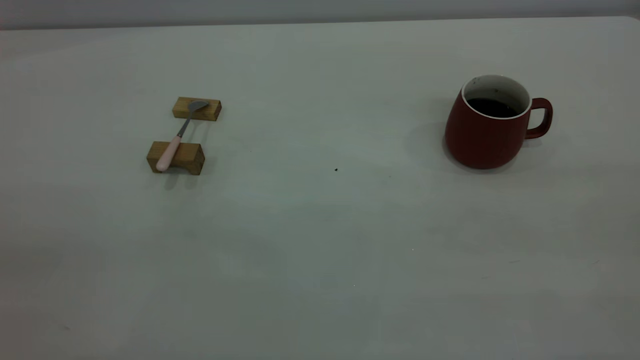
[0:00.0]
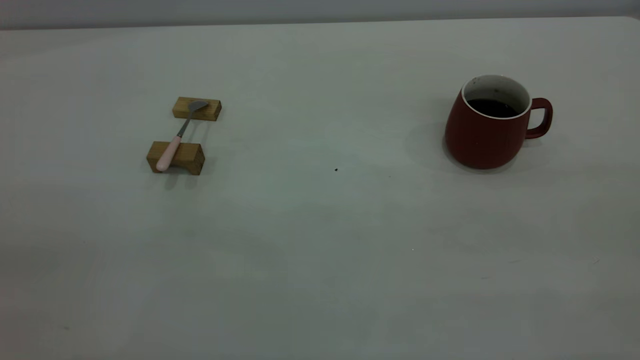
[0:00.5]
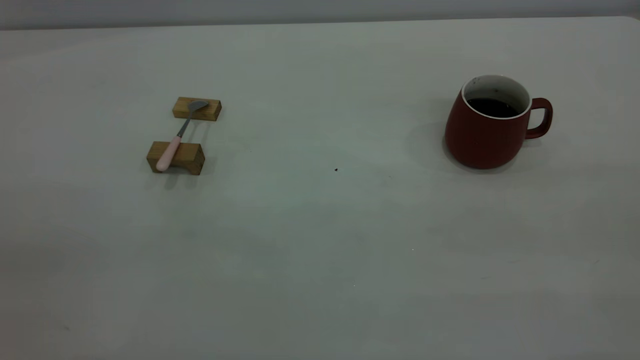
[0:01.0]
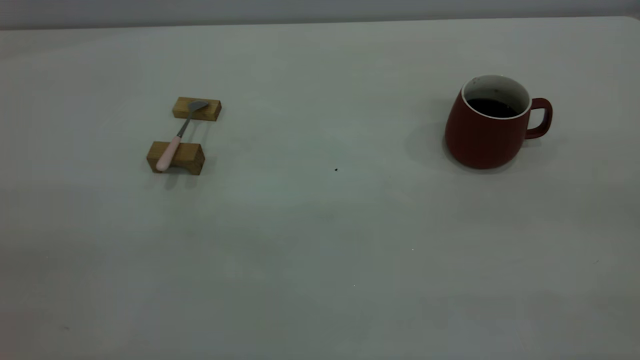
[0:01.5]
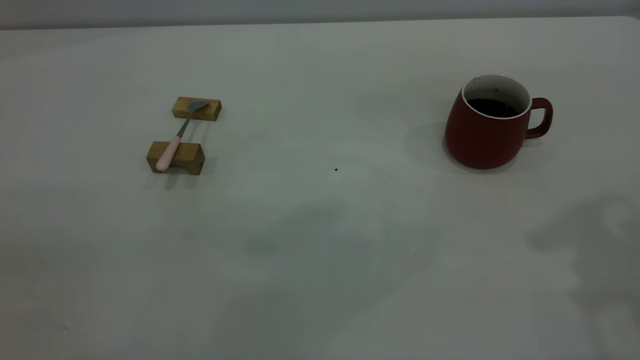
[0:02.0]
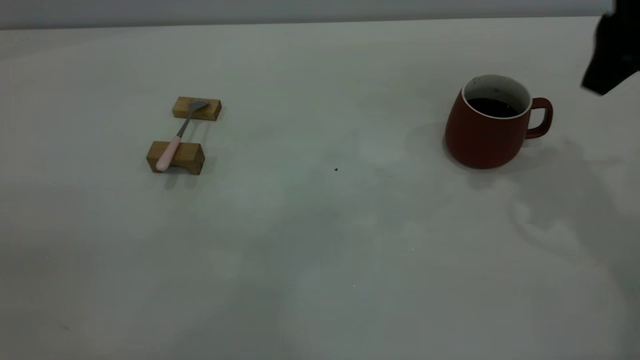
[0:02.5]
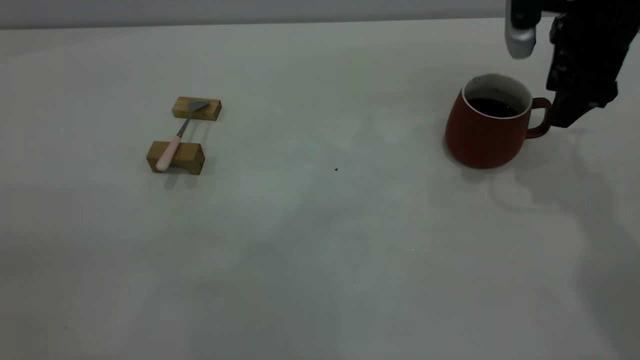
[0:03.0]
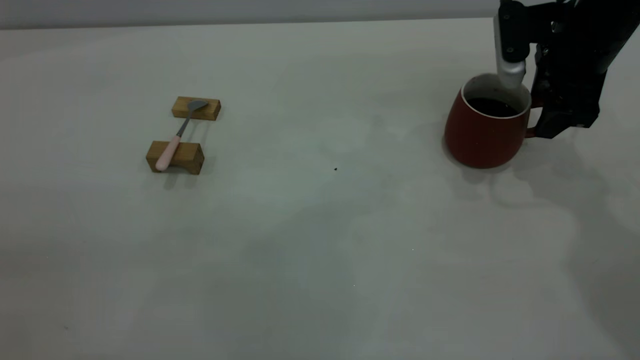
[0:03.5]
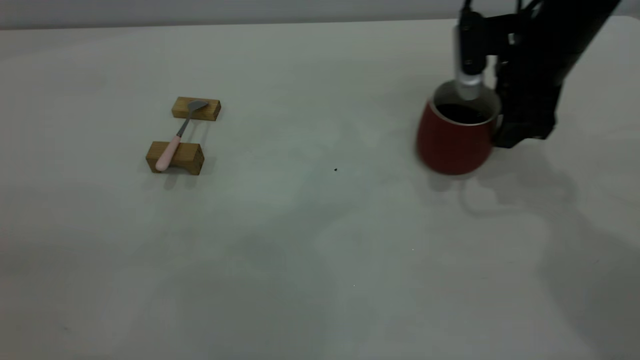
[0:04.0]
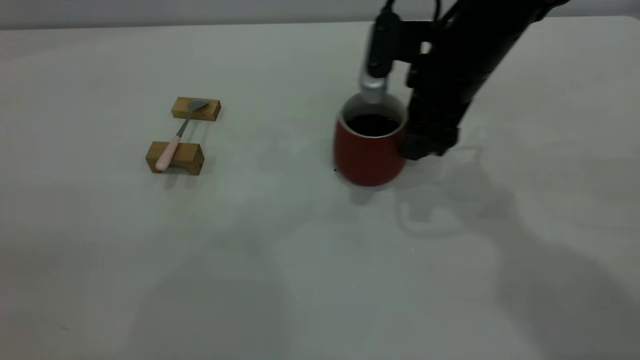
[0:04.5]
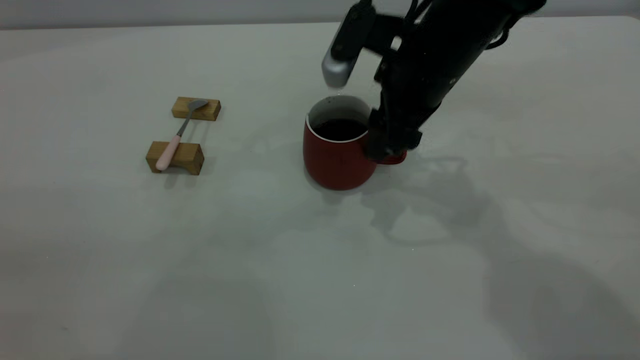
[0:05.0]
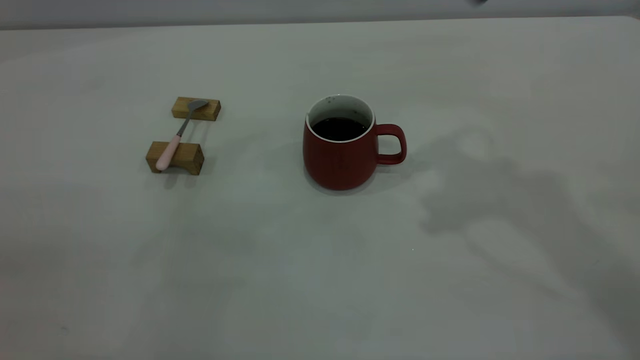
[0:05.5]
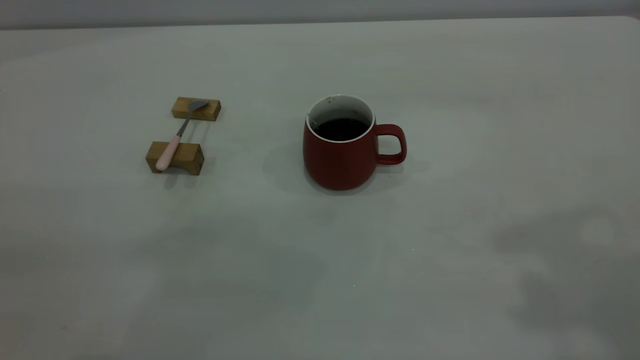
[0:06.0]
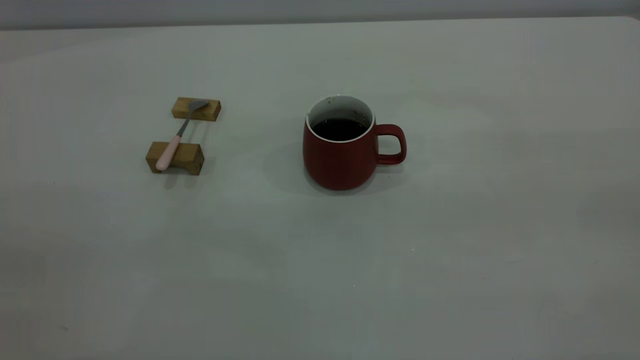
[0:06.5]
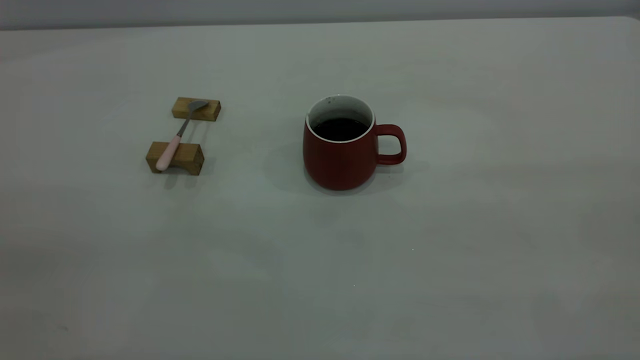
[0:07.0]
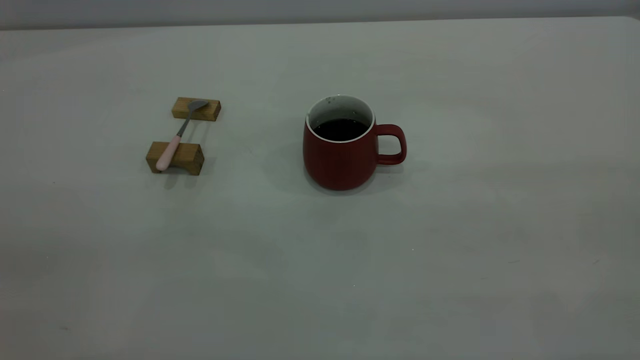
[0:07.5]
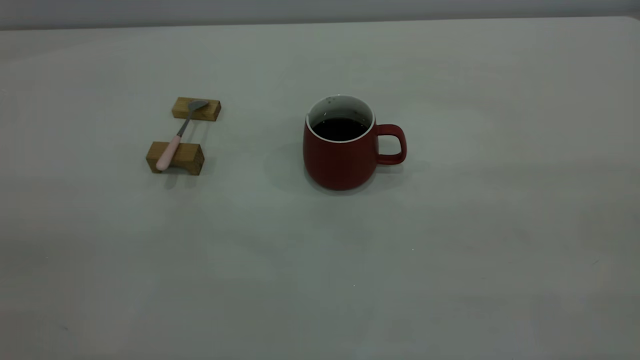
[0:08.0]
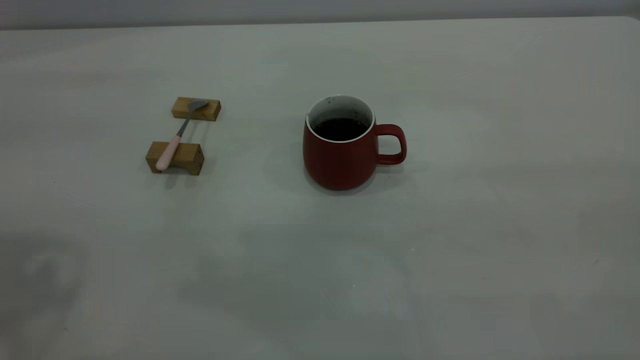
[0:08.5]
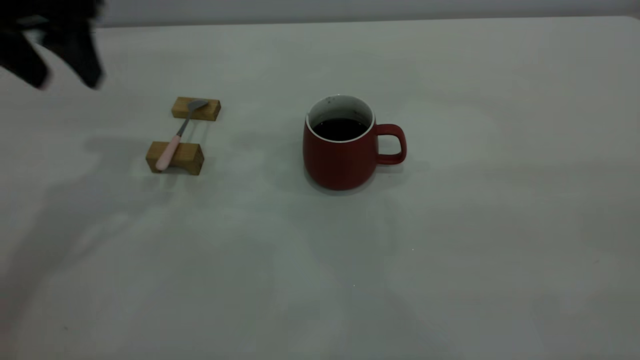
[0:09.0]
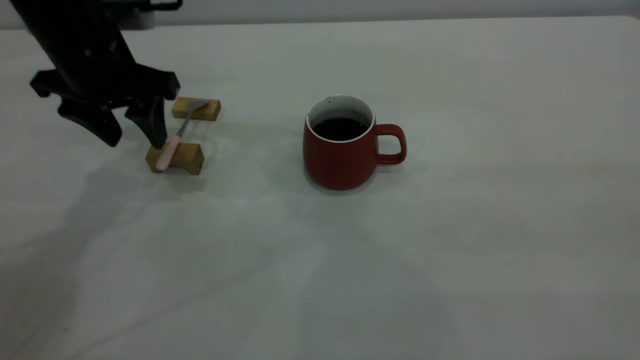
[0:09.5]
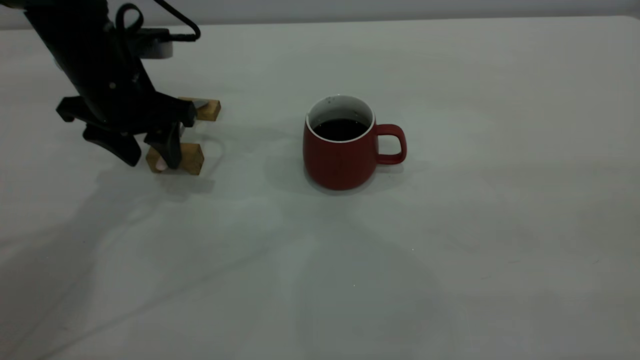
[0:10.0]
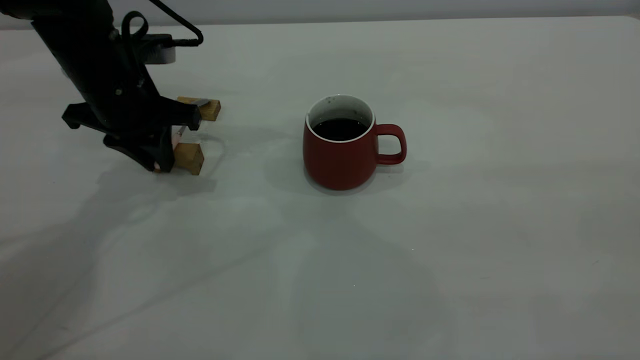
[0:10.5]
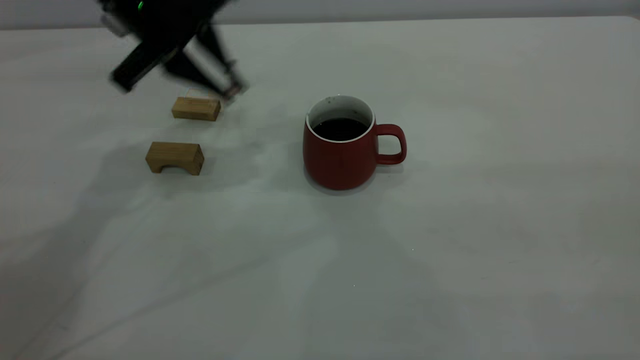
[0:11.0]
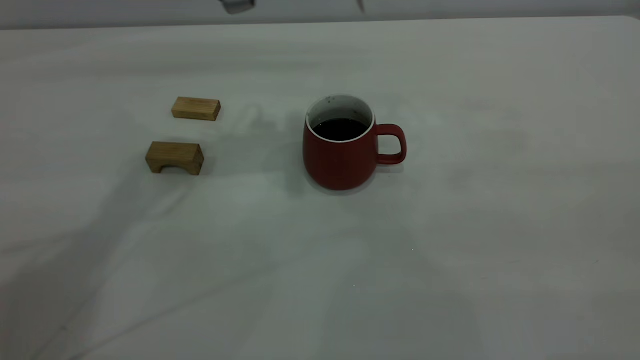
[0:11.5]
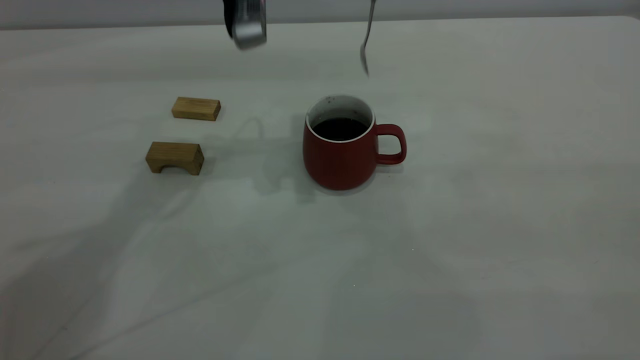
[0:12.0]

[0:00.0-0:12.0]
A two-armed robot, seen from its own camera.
Step, 0:00.0 to 0:05.0: Move the cup with coffee to the center of view.
Step, 0:05.5 to 0:10.5: Pick up the spoon.
0:02.0 to 0:04.0: The right gripper goes some 25 cm downward and forward.
0:04.0 to 0:06.0: The right gripper travels upward and backward by some 40 cm.
0:08.0 to 0:10.0: The left gripper is displaced forward and downward by roughly 40 cm, and opens its fingers.
0:10.0 to 0:12.0: The left gripper goes roughly 15 cm to the right and upward, and closes its fingers.

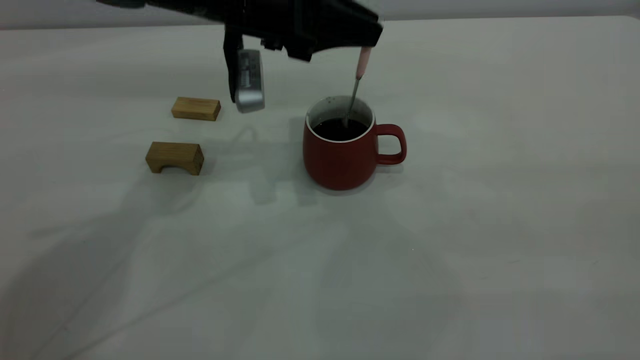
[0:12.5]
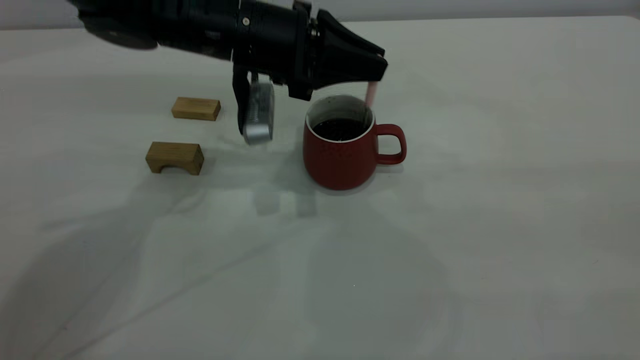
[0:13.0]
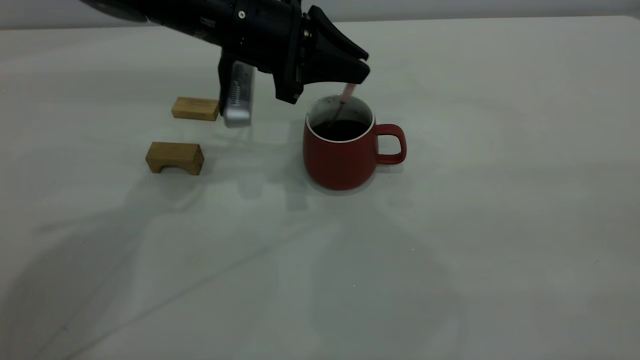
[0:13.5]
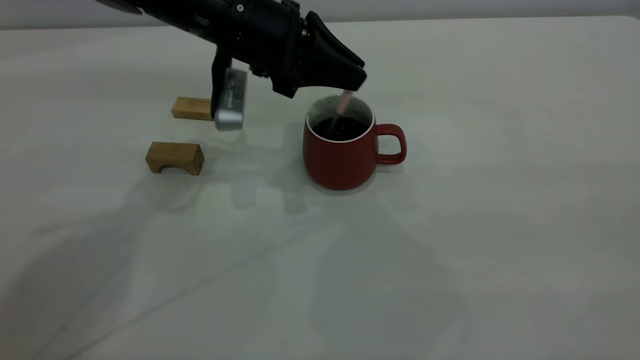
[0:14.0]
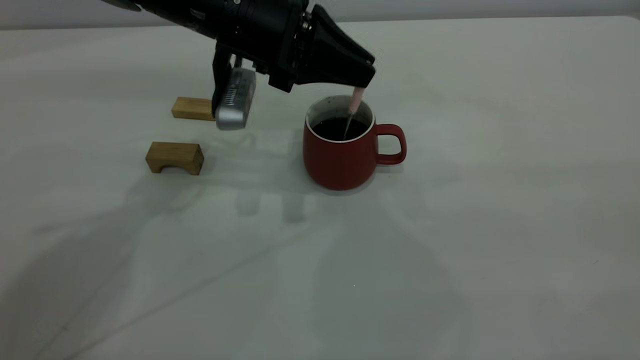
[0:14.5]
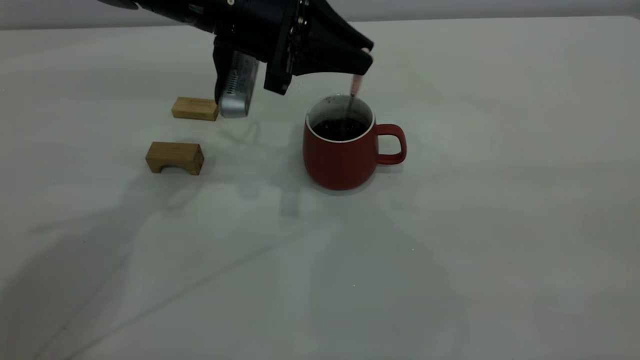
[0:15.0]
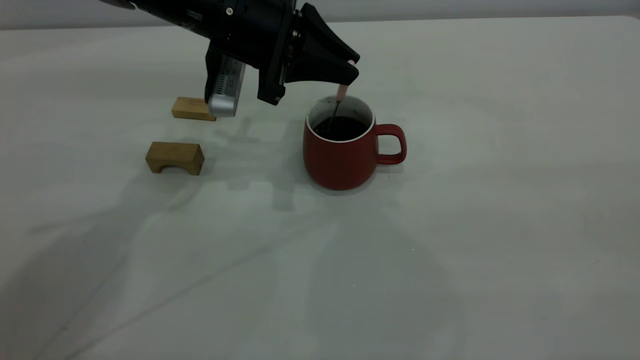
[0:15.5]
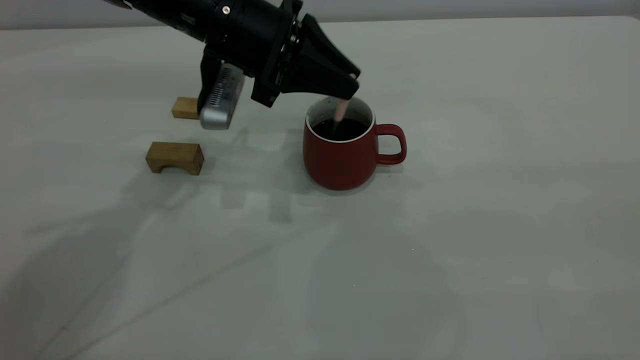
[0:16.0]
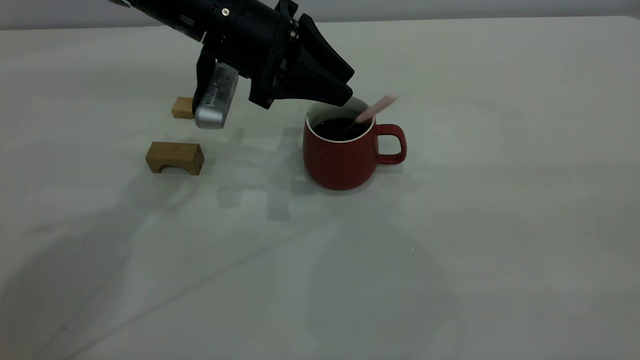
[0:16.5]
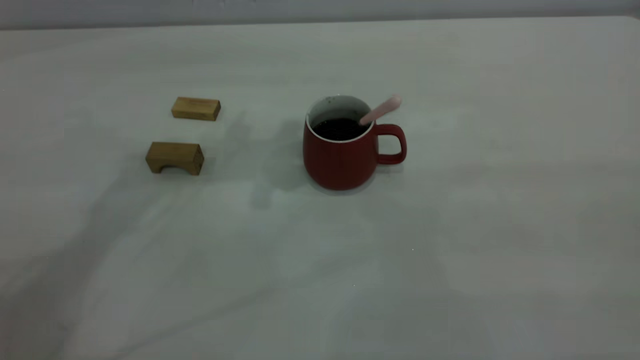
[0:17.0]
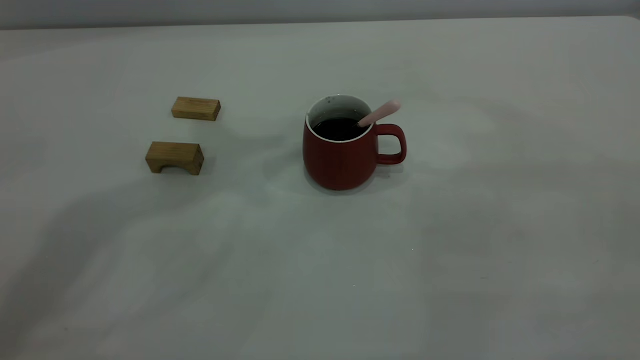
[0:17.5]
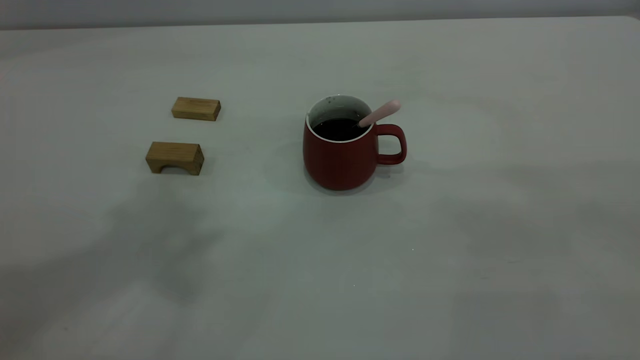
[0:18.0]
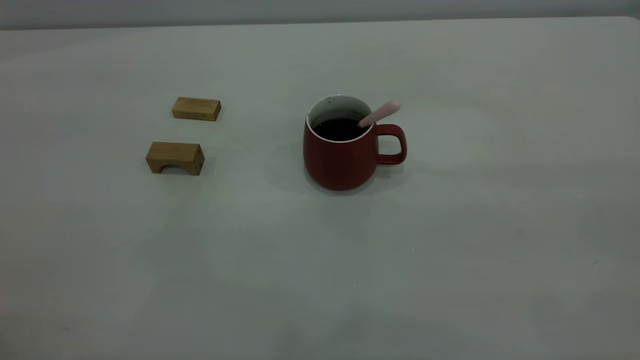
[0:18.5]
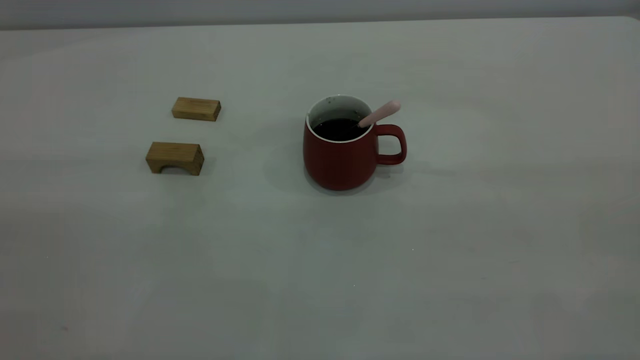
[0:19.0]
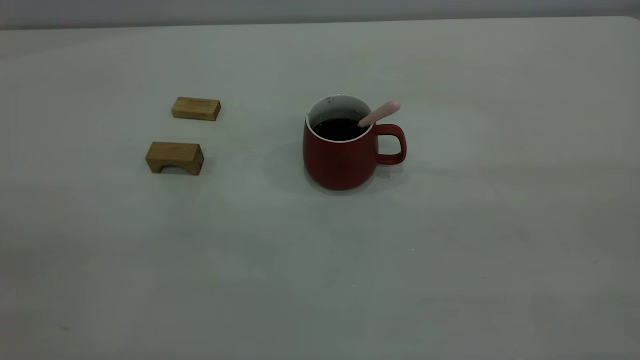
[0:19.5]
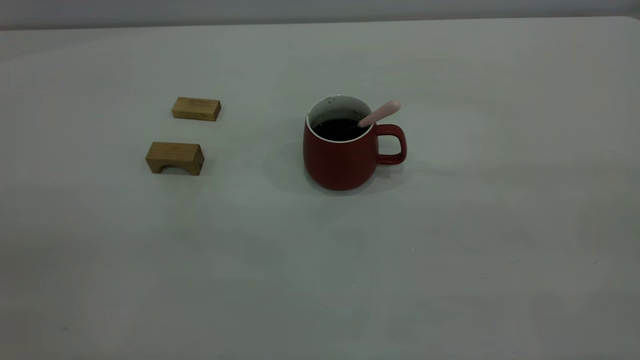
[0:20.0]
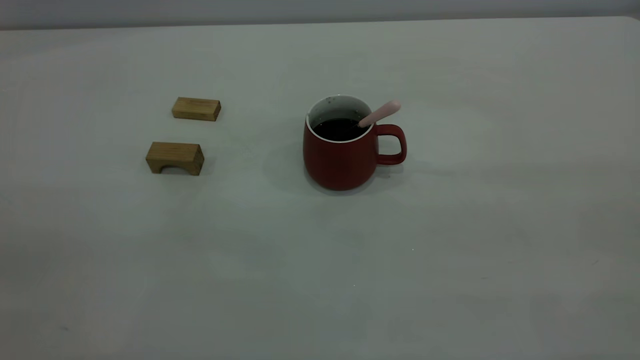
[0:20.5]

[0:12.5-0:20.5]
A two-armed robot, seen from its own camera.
Step, 0:12.5 to 0:16.5: Stir the coffee in the cup.
0:12.5 to 0:14.5: The grippers move only a little.
0:14.5 to 0:16.5: The left gripper opens up.
0:16.5 to 0:18.5: The left gripper is displaced upward, backward and to the left by roughly 50 cm.
